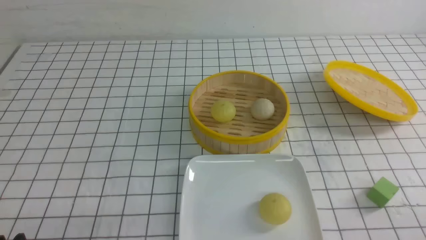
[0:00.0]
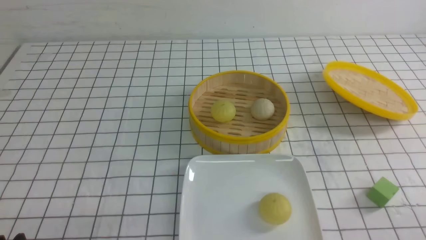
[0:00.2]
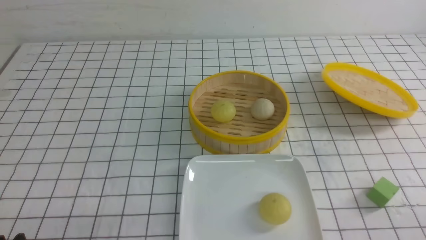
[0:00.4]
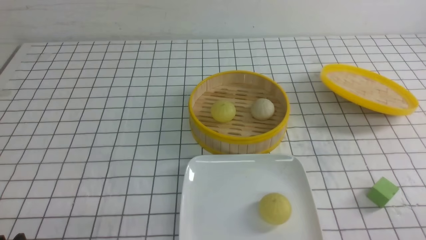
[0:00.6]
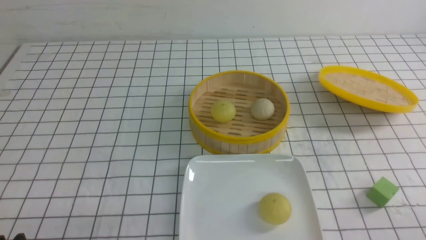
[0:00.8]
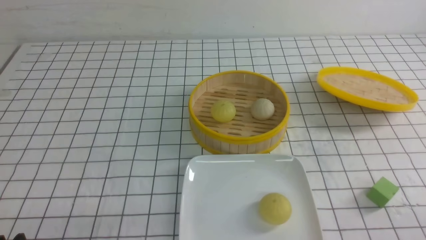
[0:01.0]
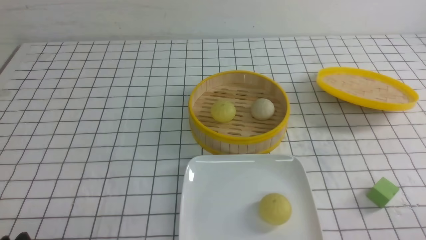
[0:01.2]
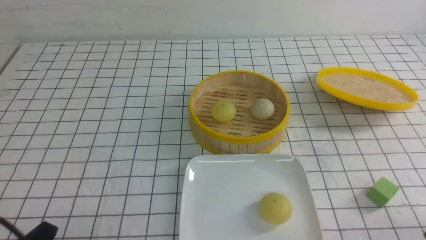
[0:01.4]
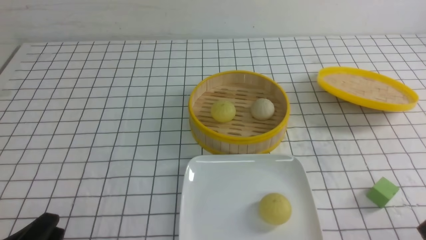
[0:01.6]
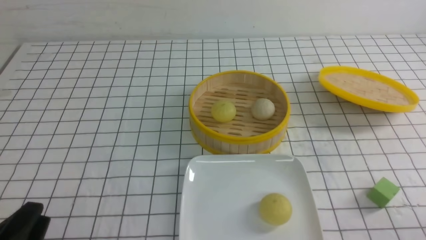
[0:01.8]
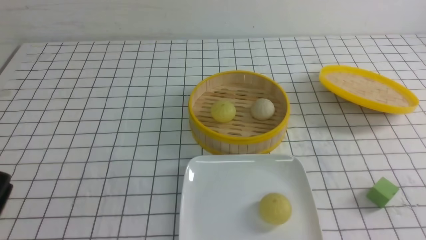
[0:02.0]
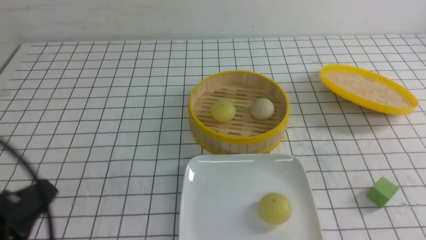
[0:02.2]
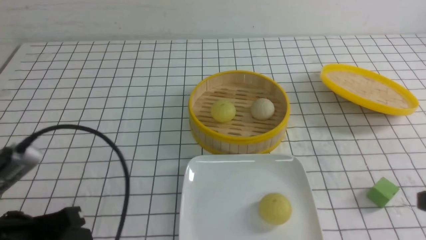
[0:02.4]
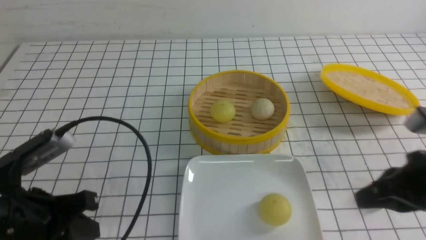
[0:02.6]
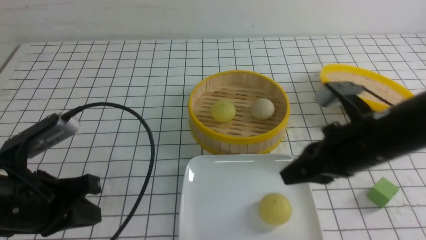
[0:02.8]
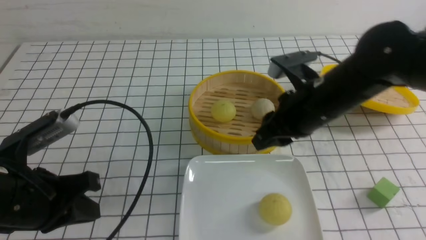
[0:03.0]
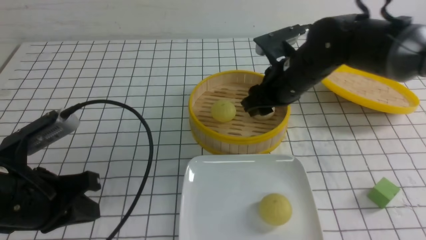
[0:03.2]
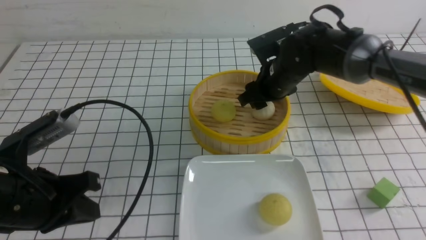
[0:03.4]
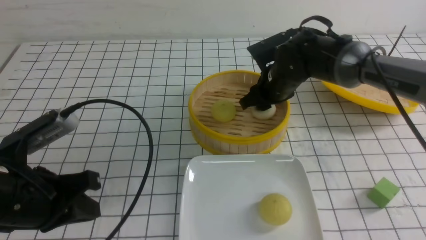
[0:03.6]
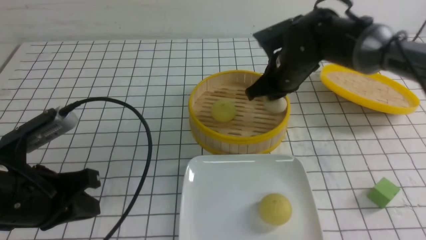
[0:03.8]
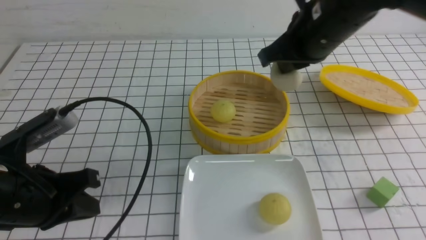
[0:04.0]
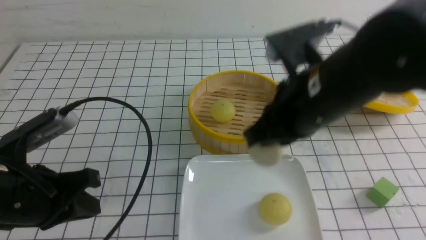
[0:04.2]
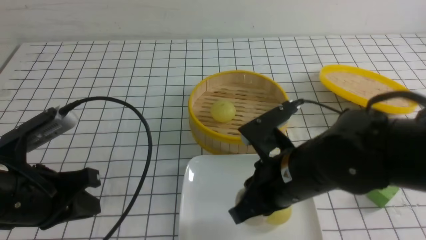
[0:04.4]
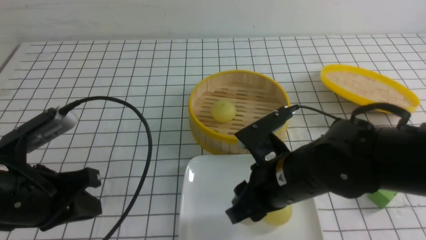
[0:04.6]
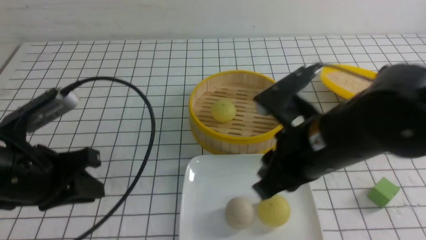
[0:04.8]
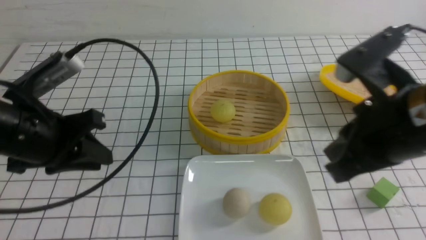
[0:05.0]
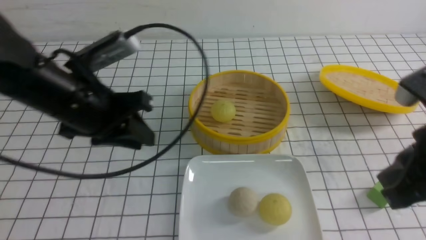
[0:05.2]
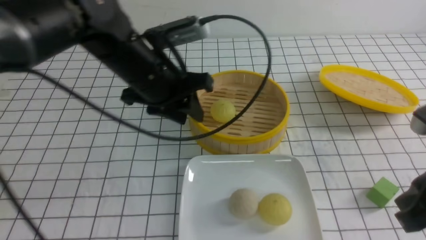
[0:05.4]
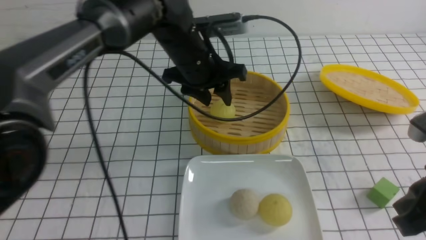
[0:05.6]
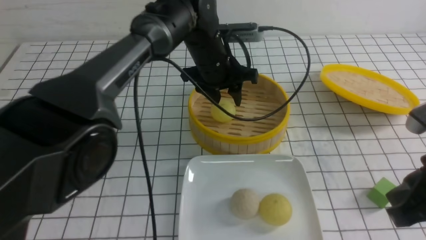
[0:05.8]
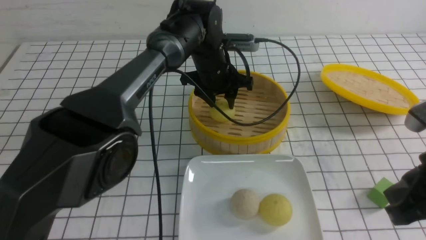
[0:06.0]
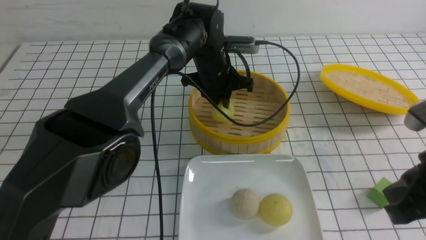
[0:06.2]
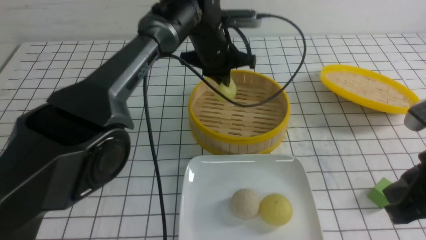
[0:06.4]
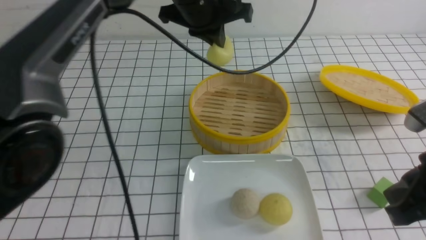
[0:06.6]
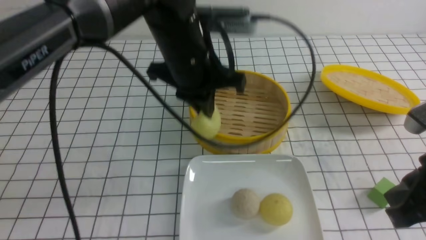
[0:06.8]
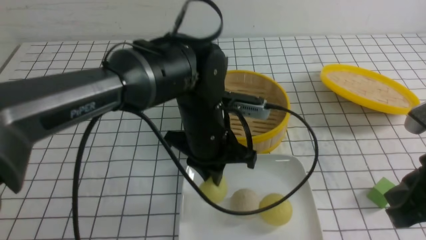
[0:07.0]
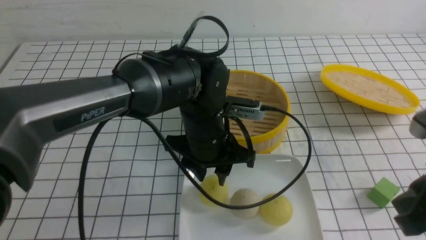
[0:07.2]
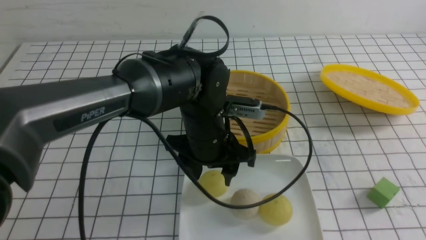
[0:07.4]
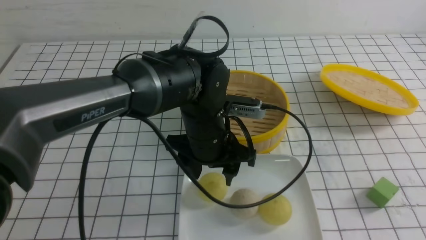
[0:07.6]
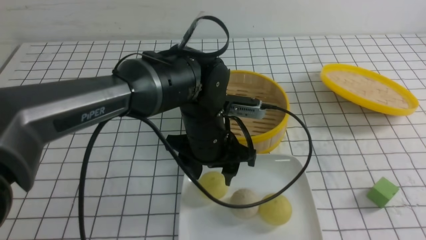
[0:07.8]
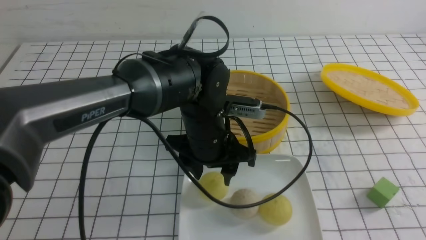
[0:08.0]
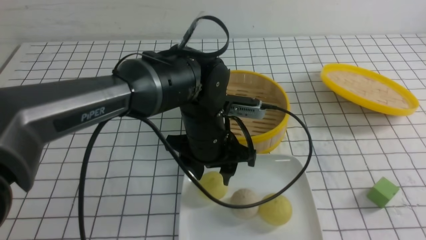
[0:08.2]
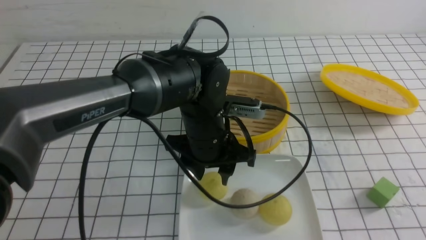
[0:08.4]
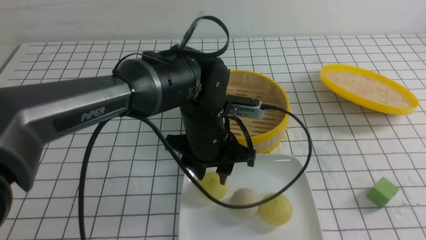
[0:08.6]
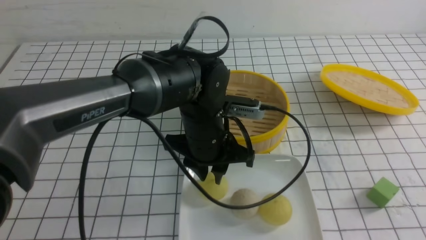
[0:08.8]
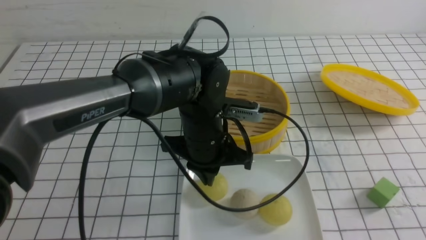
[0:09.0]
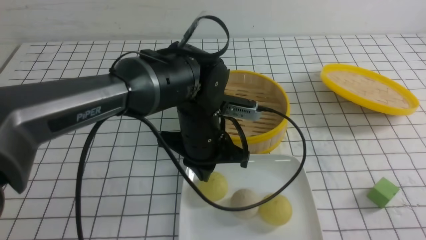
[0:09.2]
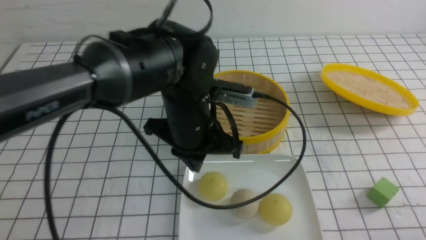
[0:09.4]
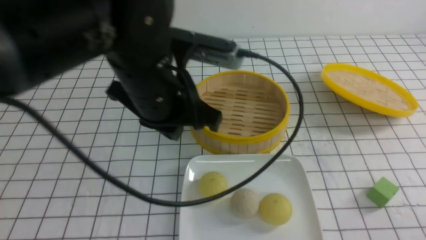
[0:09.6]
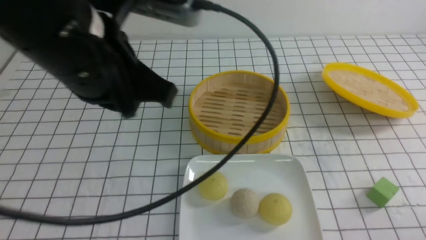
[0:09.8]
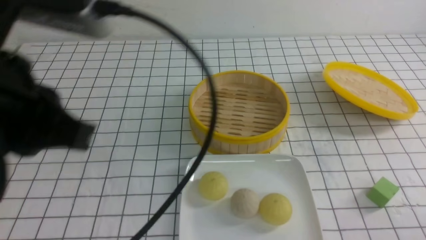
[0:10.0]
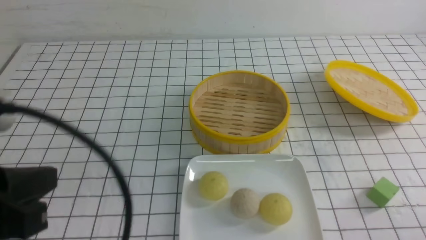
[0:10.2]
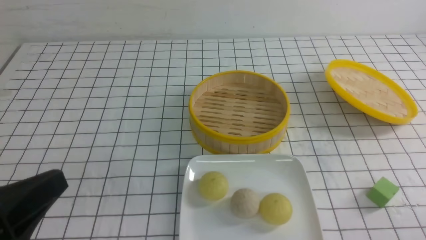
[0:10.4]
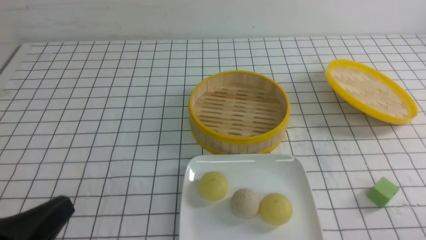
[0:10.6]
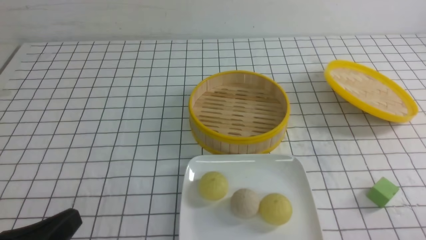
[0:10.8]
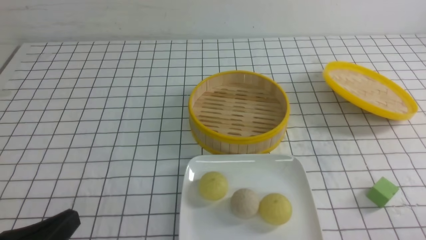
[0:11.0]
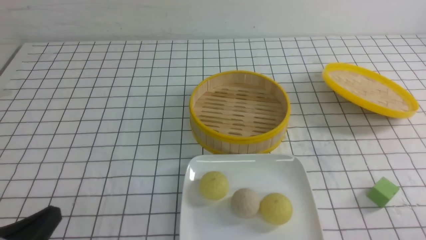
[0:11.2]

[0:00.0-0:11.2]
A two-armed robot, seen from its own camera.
Step, 0:00.0 to 0:03.6: use the right arm to grab the steamed stuffed bun that is closest to it.
Step, 0:03.8 to 0:04.6: use the right arm to put the steamed stuffed bun into the plate.
Step, 0:05.0 to 0:06.4: use the left arm to grab the steamed stuffed bun that is closest to it.
Step, 0:06.6 to 0:09.4: use the left arm to put the steamed stuffed bun into the plate.
0:01.6 to 0:03.2: The right gripper moves forward and to the left, about 40 cm, and closes and opens again; the left gripper shifts roughly 15 cm forward and upward, and closes.
0:03.2 to 0:04.8: The right gripper travels backward by approximately 15 cm, and closes.
0:04.8 to 0:06.4: The right gripper is displaced to the right and backward by some 15 cm, and closes its fingers, while the left gripper heads forward and to the right, covering roughly 30 cm, and opens and closes again.
0:06.4 to 0:08.0: The right gripper shifts about 15 cm backward and to the right; the left gripper goes roughly 15 cm backward and downward, and opens.
0:08.0 to 0:09.6: The left gripper heads upward and to the left, covering approximately 15 cm, and closes up. Meanwhile the right gripper heads downward, covering some 15 cm.
0:09.6 to 0:11.2: The left gripper shifts approximately 30 cm backward, to the left and downward.

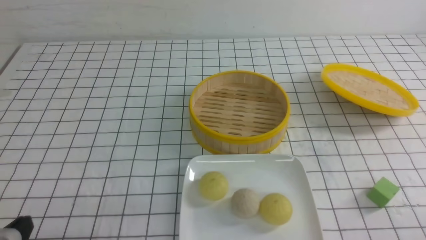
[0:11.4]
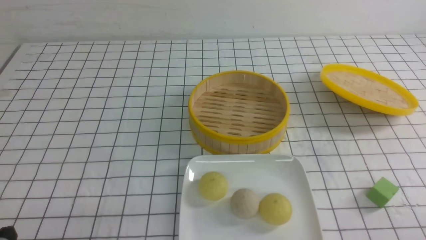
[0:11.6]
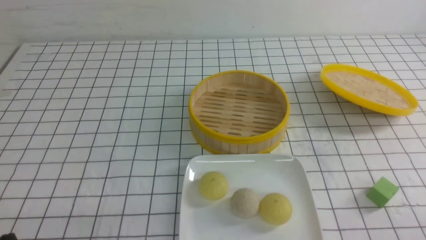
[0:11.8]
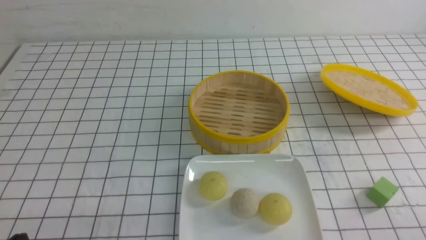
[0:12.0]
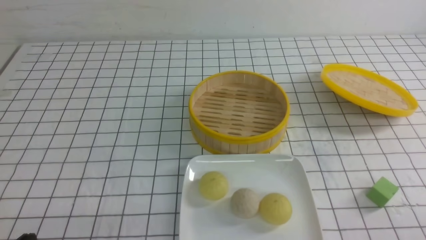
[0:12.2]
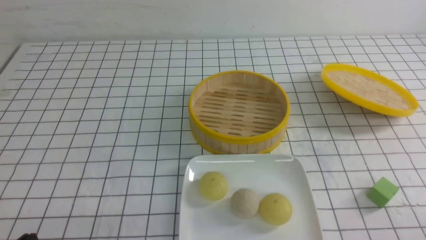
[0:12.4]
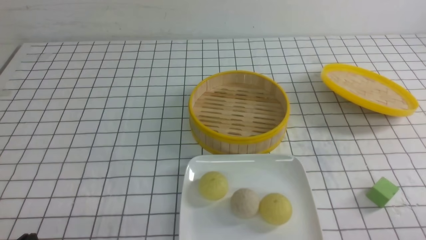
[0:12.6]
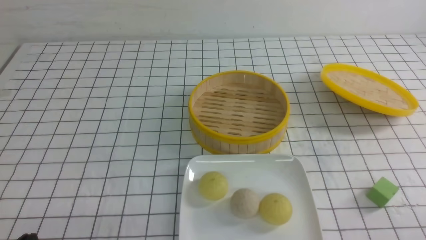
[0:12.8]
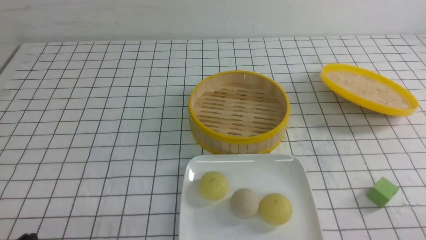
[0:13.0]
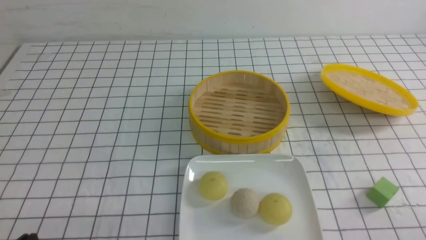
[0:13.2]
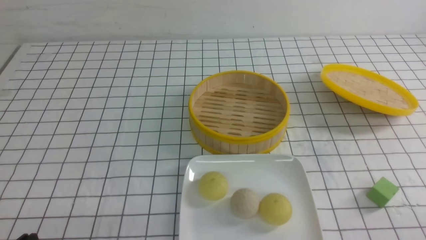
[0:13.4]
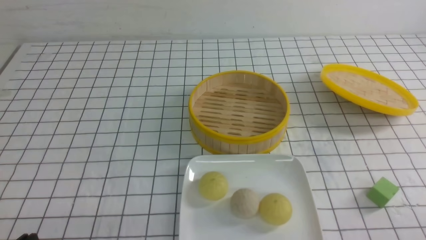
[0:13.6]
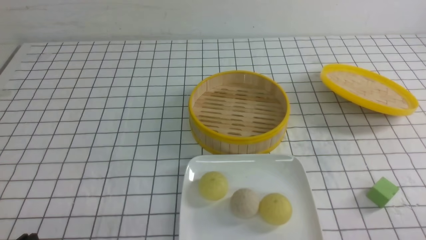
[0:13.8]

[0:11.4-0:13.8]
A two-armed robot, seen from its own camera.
0:12.6 to 0:13.8: Both grippers stay put.

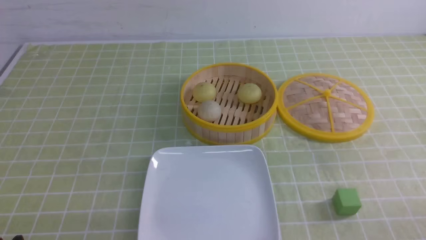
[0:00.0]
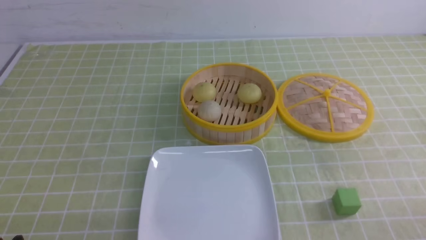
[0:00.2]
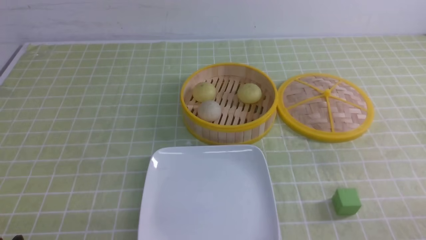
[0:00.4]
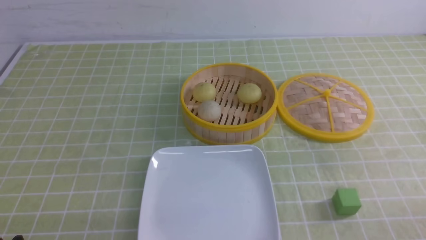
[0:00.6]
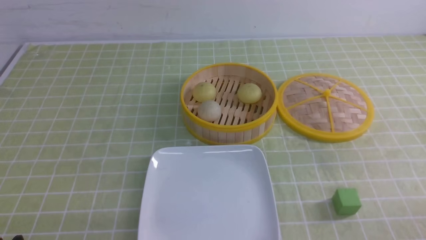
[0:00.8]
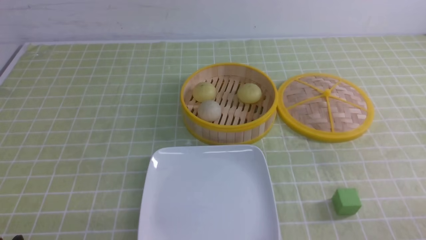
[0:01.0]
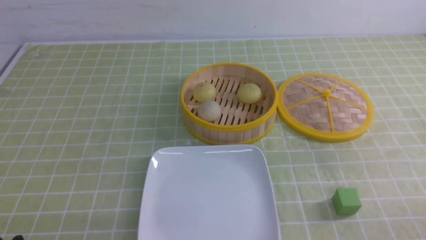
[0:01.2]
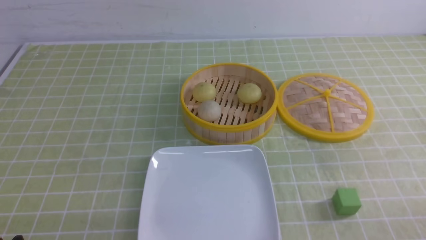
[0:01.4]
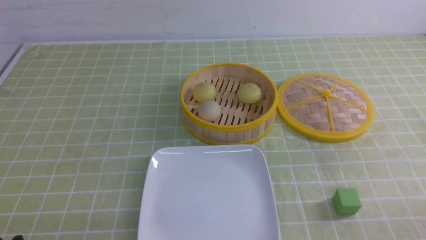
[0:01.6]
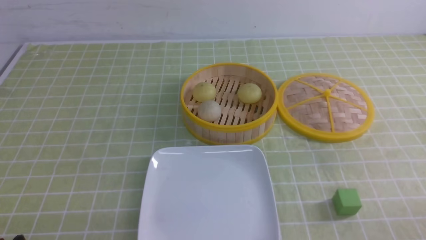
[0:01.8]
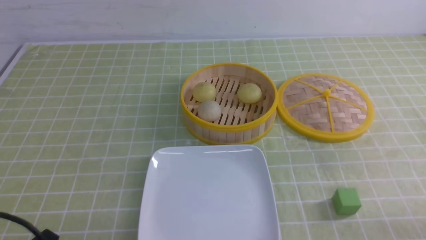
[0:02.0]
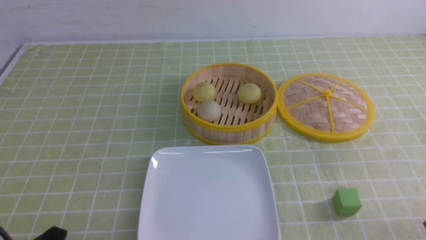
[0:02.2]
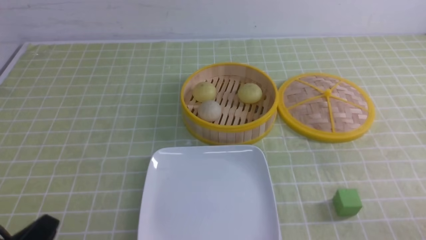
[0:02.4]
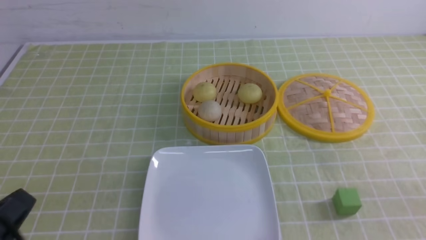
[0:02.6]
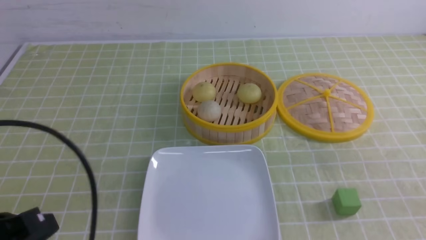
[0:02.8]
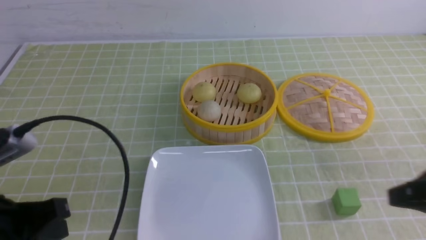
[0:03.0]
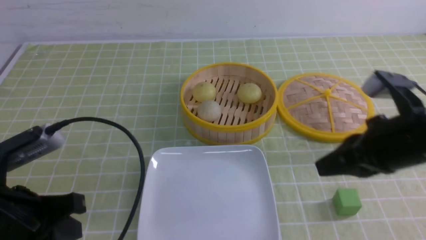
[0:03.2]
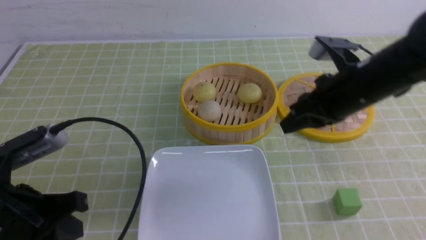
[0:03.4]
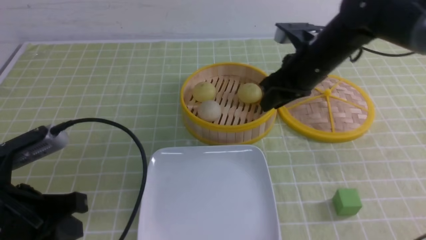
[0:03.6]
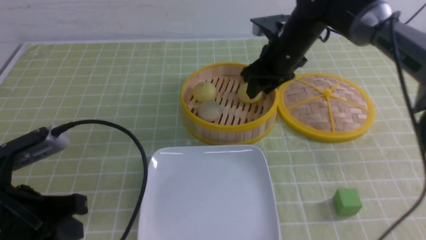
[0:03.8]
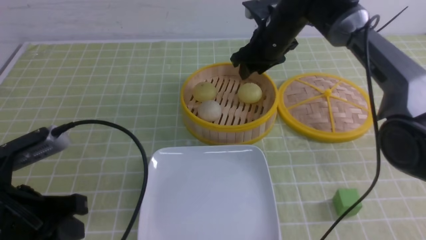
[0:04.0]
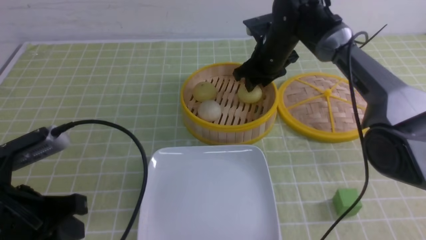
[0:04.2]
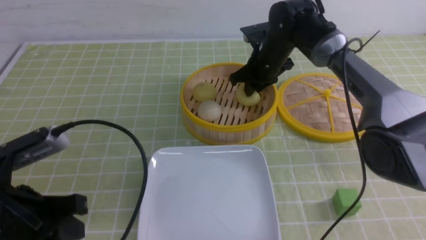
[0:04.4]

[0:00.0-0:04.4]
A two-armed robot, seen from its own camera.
Step, 0:00.0 to 0:04.4: use the right arm to grab the steamed stuffed bun that is closest to it.
0:00.0 to 0:01.4: Both grippers stay put.
0:01.4 to 0:03.0: The left gripper shifts approximately 10 cm upward and forward, and closes up. Meanwhile the right gripper shifts about 15 cm upward, forward and to the left, and closes up.
0:03.0 to 0:04.4: The right gripper goes some 35 cm forward and to the left, and opens up.
